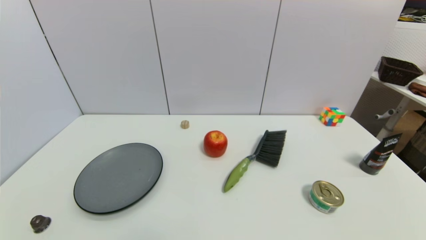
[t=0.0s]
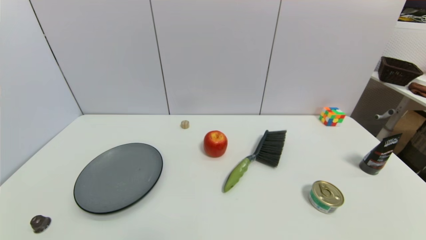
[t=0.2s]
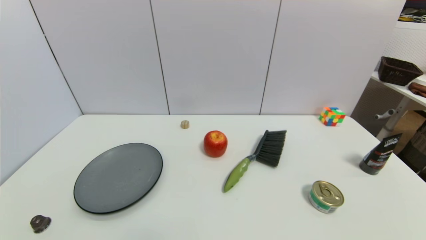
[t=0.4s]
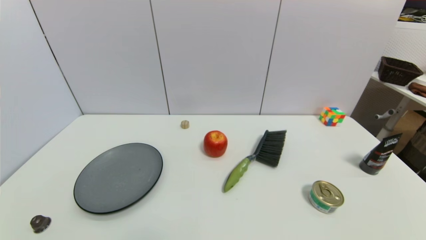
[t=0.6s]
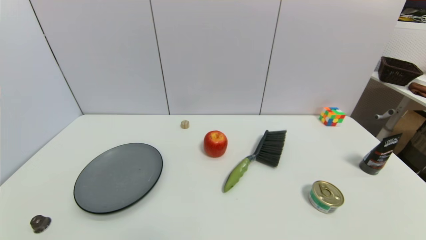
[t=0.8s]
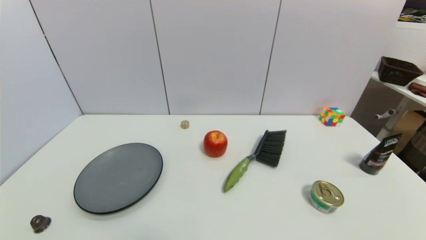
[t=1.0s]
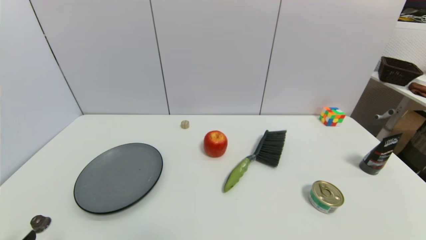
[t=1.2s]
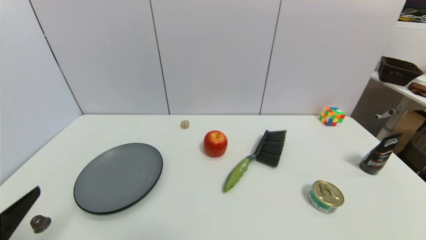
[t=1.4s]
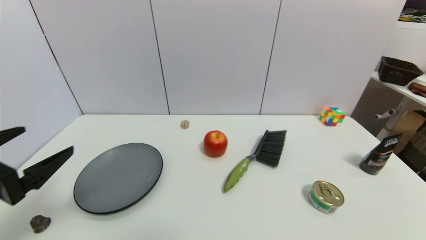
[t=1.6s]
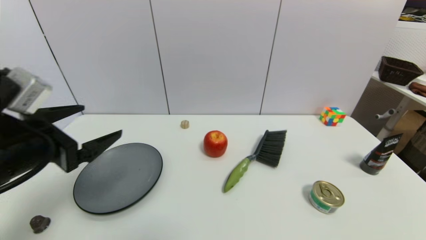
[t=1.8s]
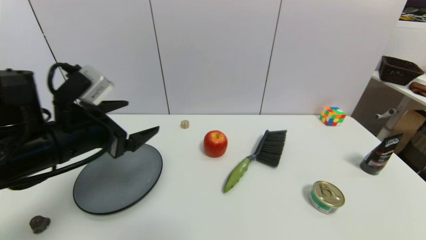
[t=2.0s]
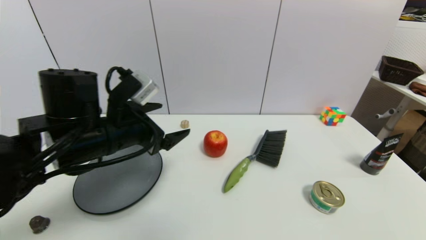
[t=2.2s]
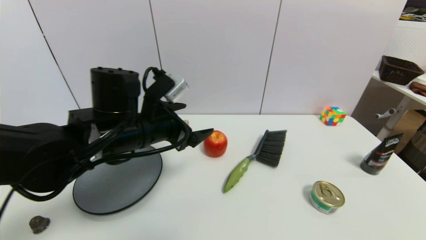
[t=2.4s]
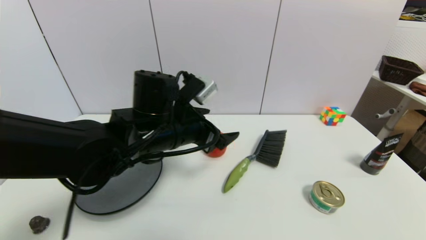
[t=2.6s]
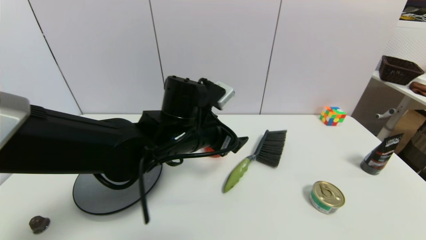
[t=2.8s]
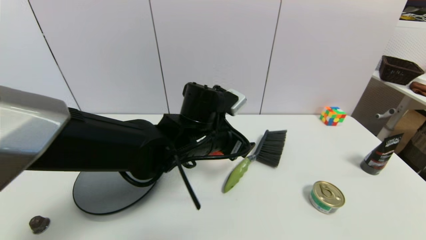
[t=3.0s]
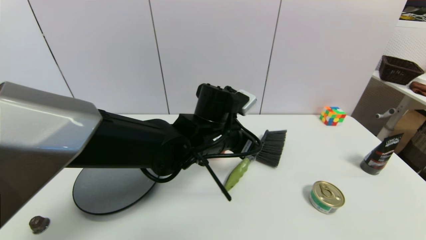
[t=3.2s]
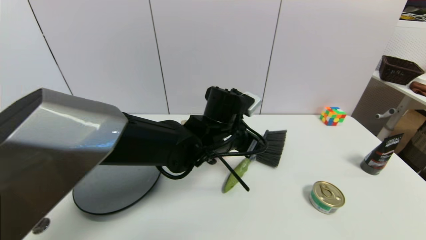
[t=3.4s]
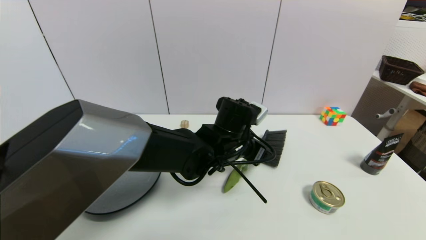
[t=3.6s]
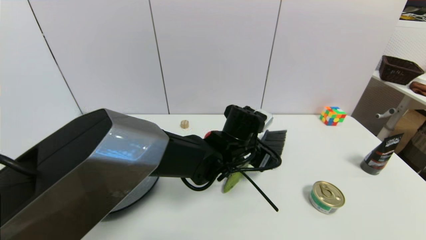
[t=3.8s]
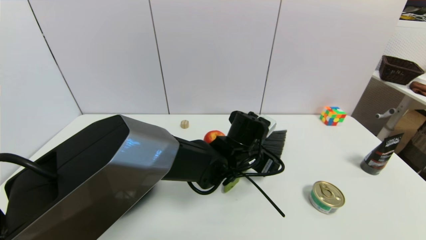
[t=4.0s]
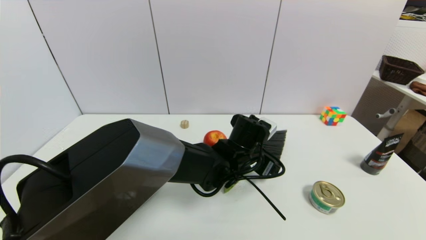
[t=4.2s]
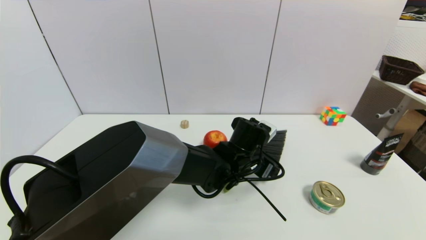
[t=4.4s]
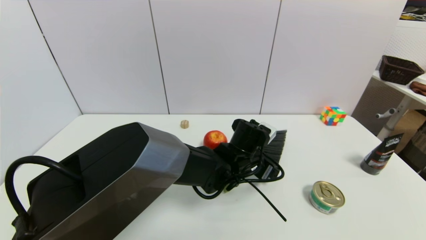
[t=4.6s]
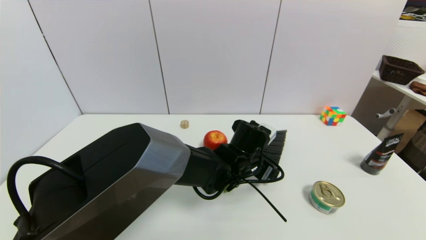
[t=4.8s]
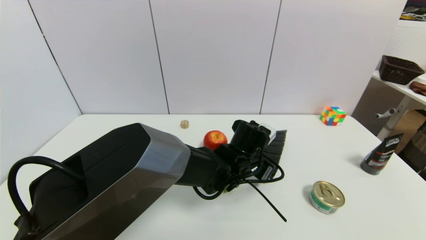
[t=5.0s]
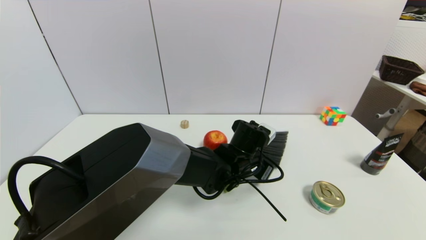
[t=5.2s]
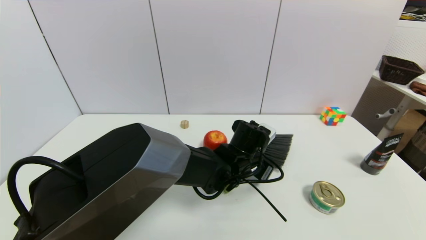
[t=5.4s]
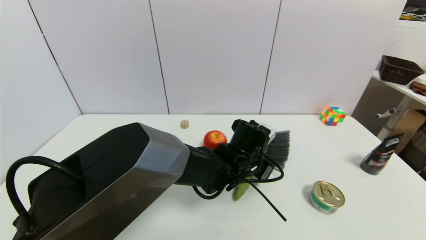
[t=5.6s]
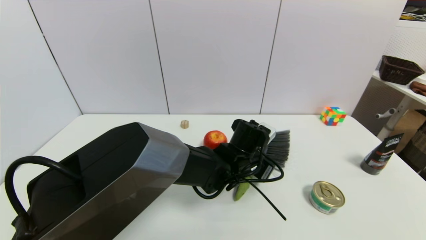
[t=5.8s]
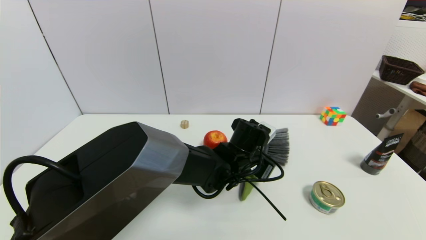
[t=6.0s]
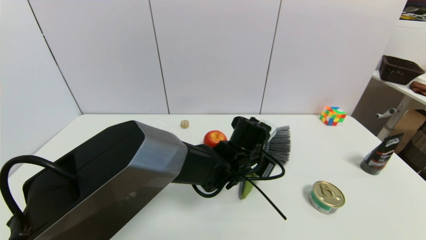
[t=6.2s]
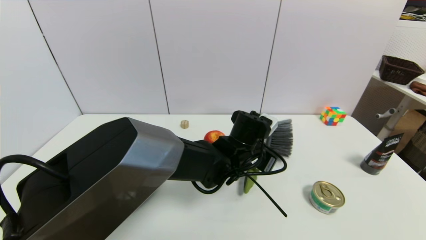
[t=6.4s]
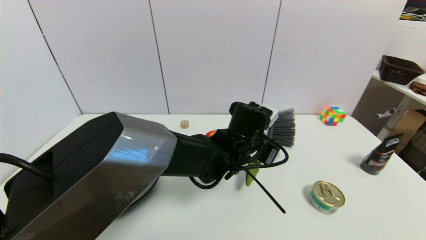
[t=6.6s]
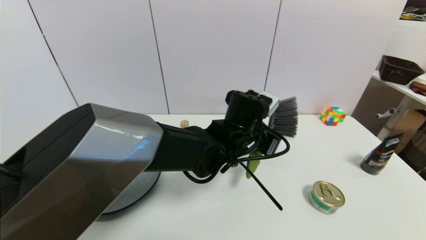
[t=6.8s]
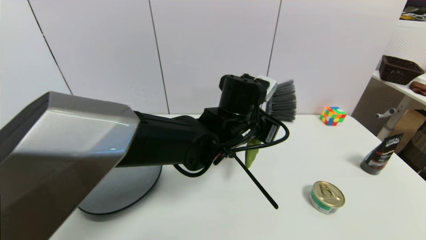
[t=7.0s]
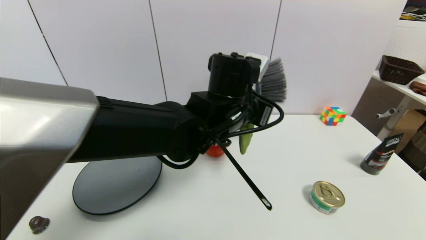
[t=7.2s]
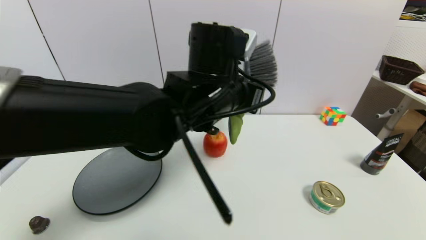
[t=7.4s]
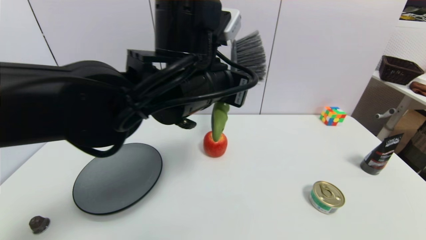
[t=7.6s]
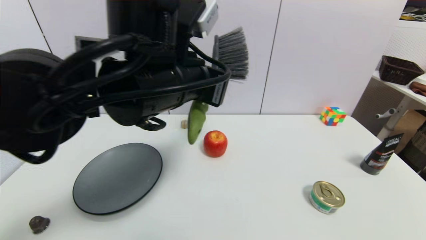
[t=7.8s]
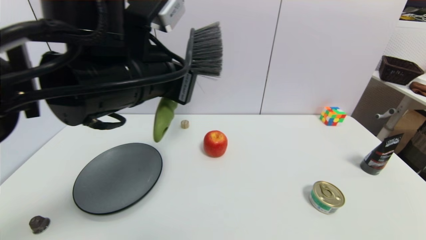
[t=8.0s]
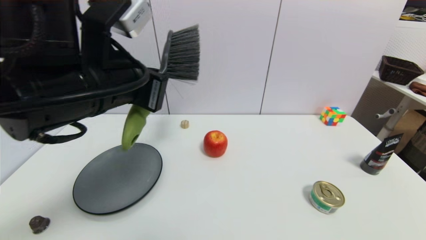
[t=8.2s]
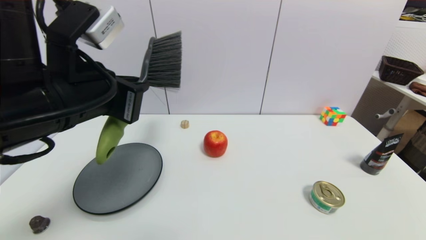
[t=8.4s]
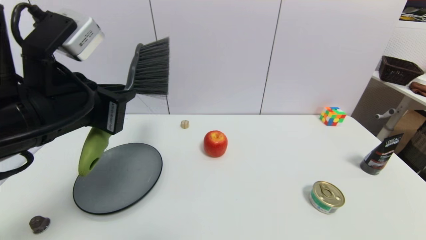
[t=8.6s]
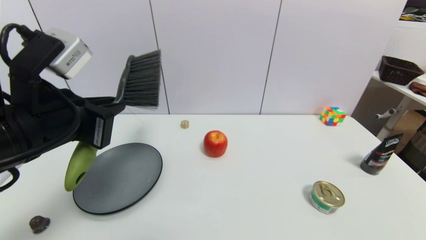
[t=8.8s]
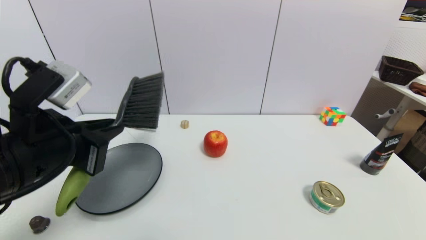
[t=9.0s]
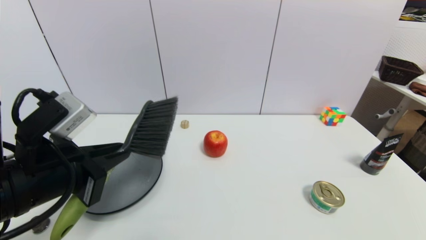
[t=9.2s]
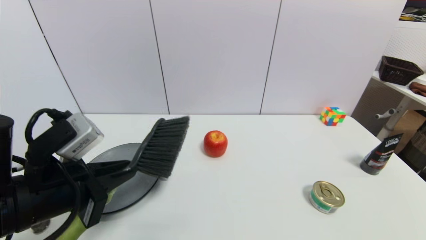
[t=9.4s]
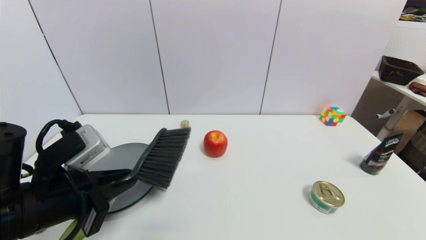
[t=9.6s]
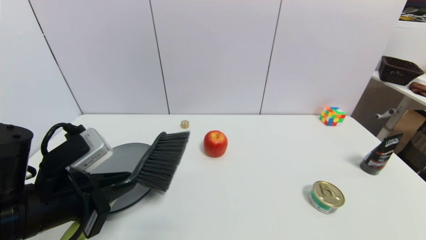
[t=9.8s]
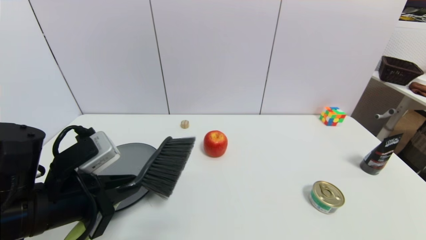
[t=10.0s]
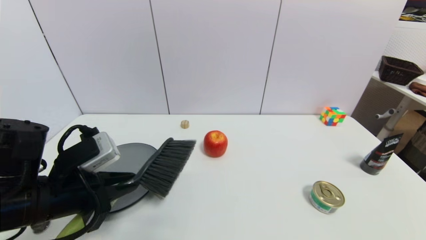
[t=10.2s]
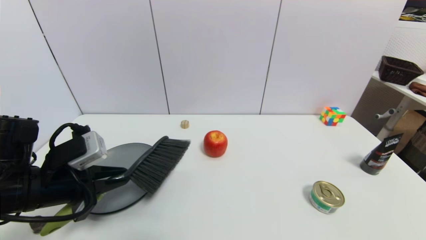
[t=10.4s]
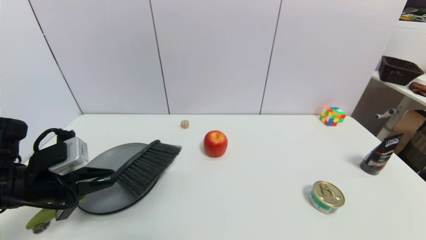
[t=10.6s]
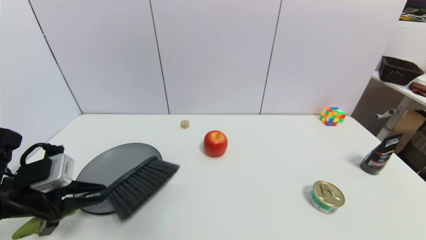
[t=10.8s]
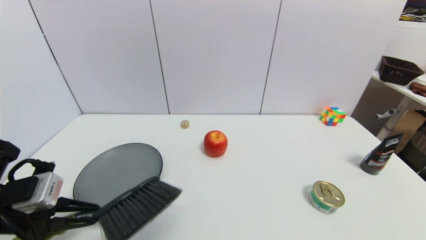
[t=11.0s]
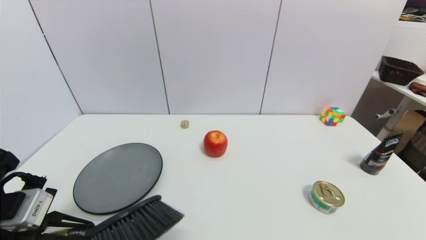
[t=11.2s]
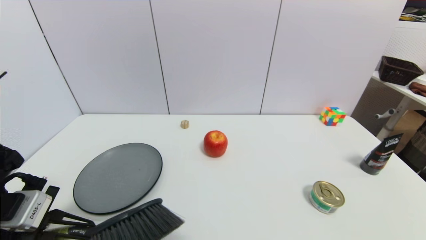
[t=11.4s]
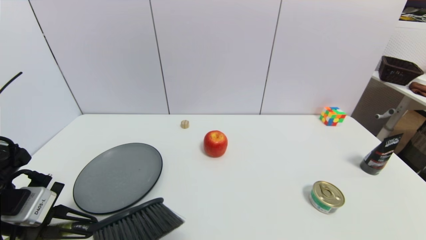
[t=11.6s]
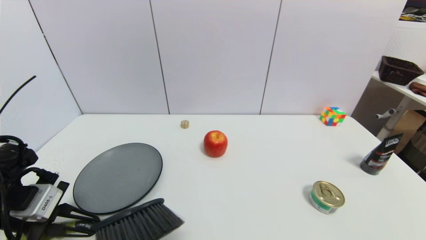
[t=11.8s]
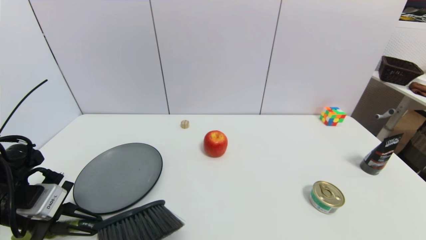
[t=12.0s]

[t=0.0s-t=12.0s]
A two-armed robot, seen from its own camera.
Task of the whole recording: put the brush in the designated position.
t=0.0s to t=1.6s: The left gripper goes roughly 20 cm upward and forward.
t=1.6s to t=3.0s: The left gripper travels to the right and forward by approximately 30 cm.
t=3.0s to t=4.4s: The left gripper heads downward and to the right, covering about 10 cm.
t=4.4s to t=6.0s: The left gripper closes.
t=6.0s to t=7.6s: The left gripper travels upward and to the left by roughly 20 cm.
t=7.6s to t=9.0s: The left gripper is displaced to the left and backward by approximately 20 cm.
t=9.0s to t=10.4s: The left gripper heads downward and to the left, covering roughly 10 cm.
t=10.4s to t=12.0s: The left gripper moves to the left, about 5 cm.

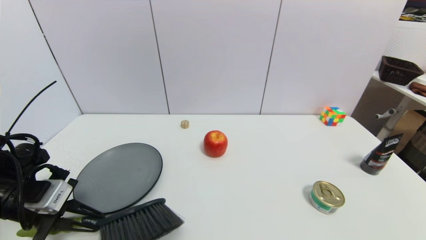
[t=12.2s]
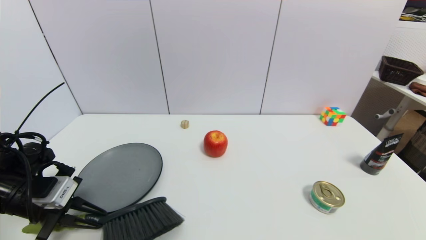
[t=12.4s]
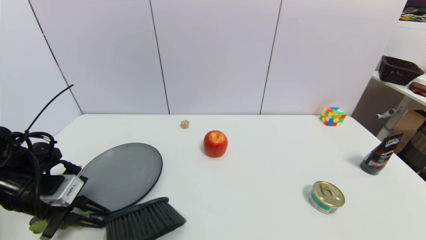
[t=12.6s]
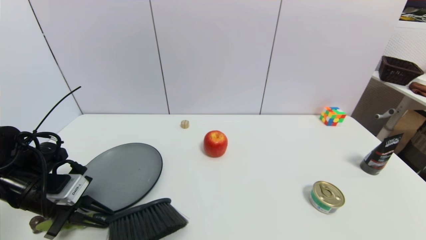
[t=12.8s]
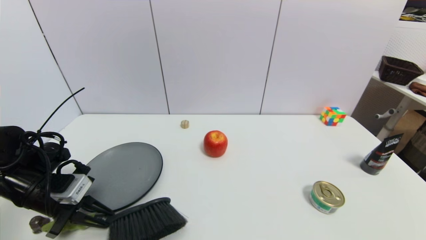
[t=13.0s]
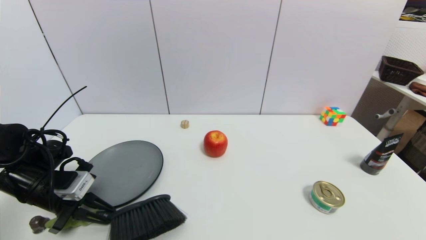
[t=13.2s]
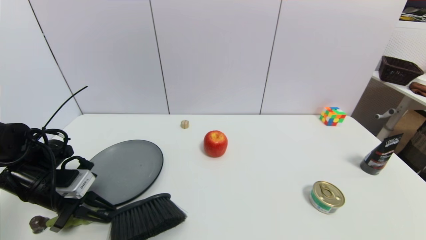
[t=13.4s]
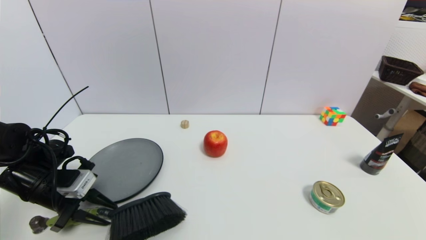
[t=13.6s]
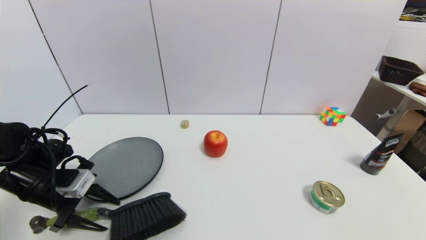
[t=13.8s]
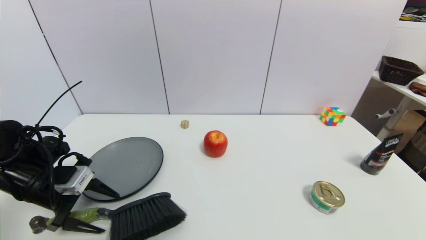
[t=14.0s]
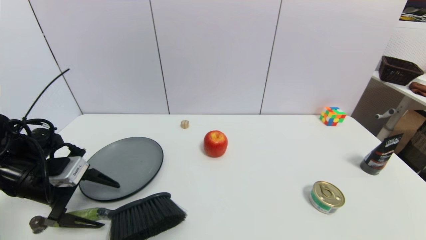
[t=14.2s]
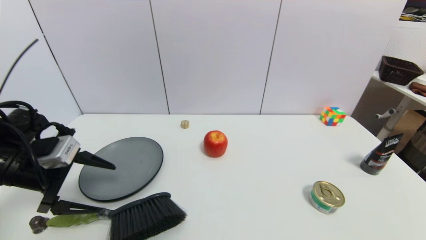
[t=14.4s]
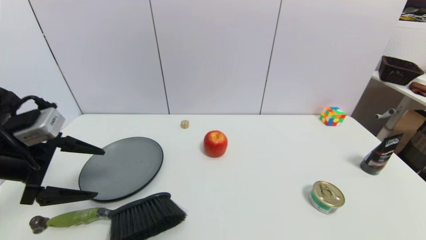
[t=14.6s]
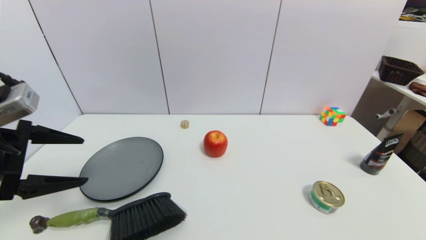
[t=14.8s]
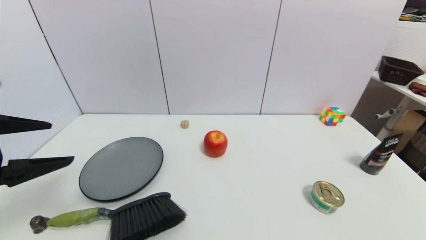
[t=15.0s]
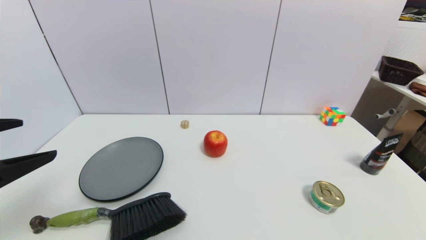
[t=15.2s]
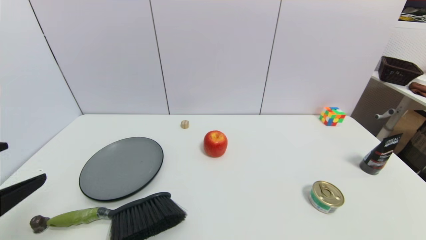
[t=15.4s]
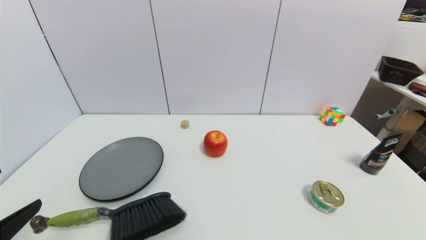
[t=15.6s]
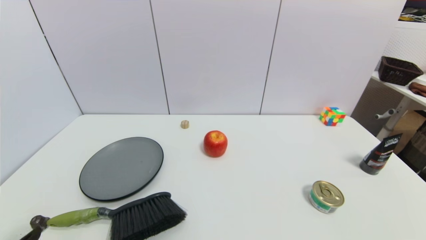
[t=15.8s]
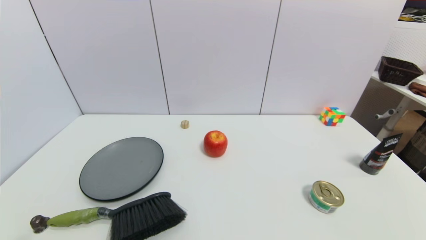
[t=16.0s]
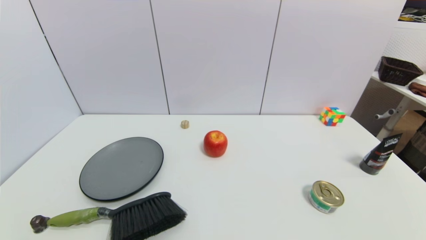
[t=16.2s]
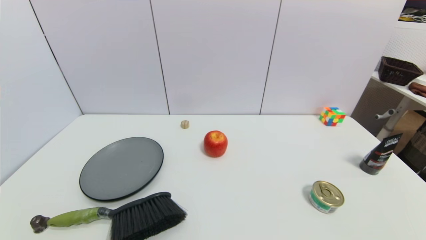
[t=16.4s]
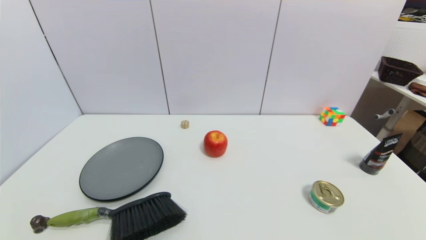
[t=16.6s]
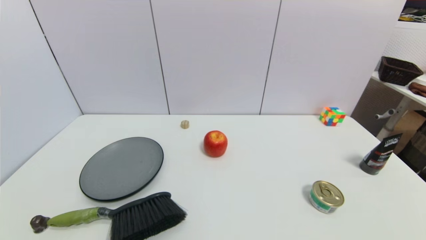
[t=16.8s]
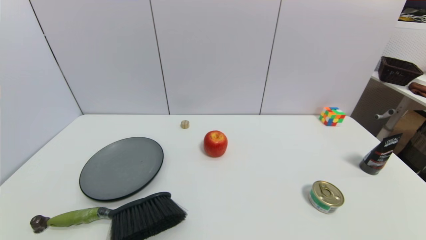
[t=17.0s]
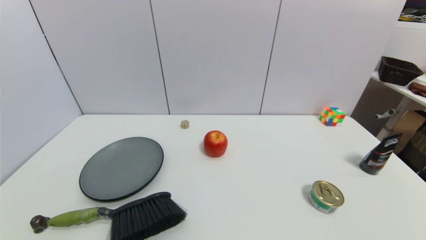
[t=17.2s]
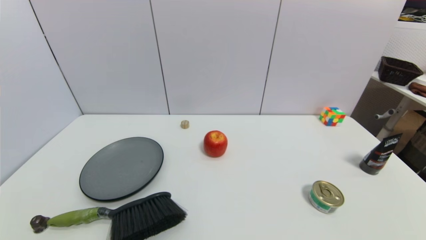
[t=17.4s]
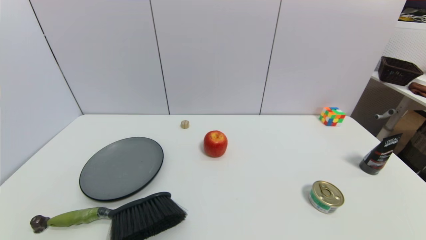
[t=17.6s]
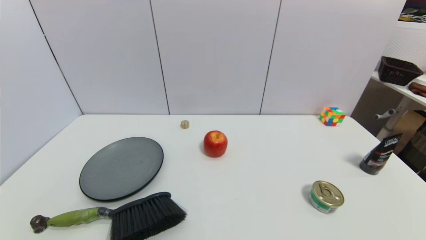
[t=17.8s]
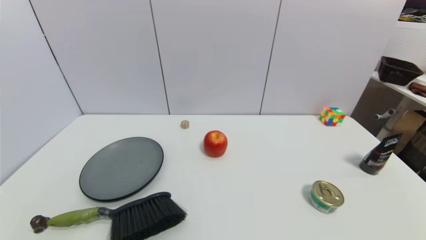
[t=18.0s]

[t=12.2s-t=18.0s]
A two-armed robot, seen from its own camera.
Task of the whole recording: put the brush in the designated position.
t=12.2s to t=13.6s: The grippers make only small movements.
t=13.6s to t=15.0s: The left gripper goes roughly 20 cm upward and backward, and opens up.
t=15.0s to t=16.6s: The left gripper heads downward and backward, covering roughly 25 cm.
t=16.6s to t=18.0s: The two grippers keep their place.
